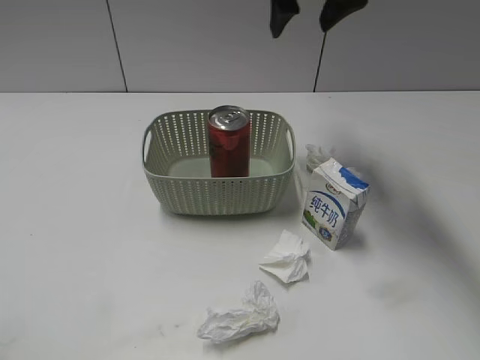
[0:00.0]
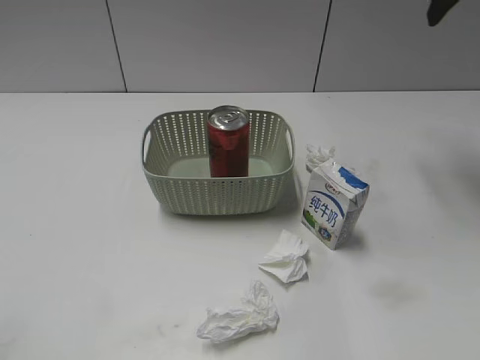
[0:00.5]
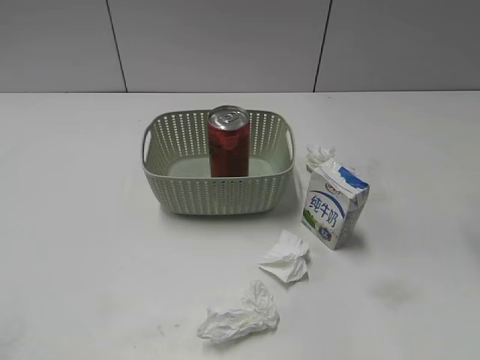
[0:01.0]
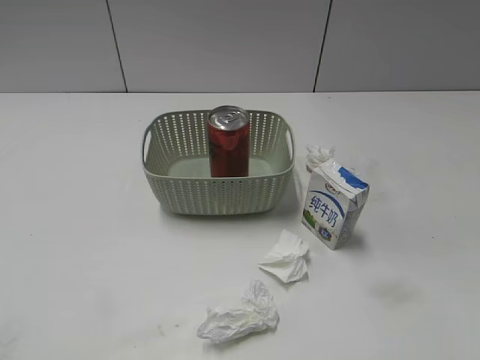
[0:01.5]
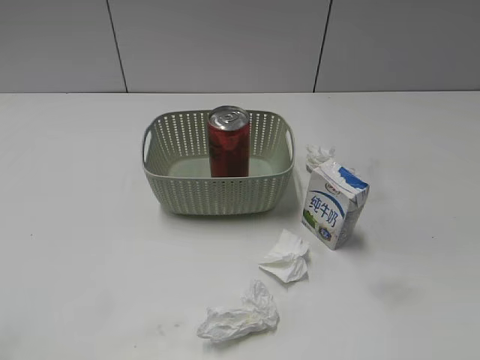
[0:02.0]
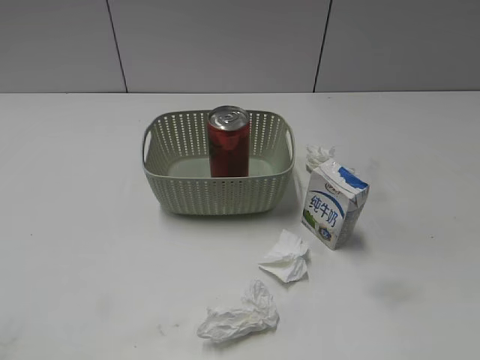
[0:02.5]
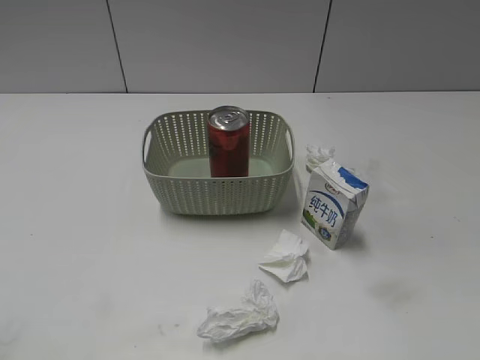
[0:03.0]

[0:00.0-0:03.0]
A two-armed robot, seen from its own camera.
0:00.0 to 0:01.5: The right gripper shifts some 35 cm backward and to the right.
